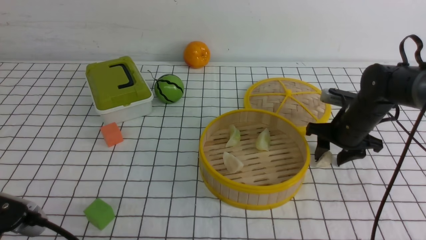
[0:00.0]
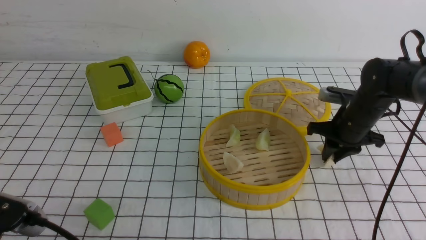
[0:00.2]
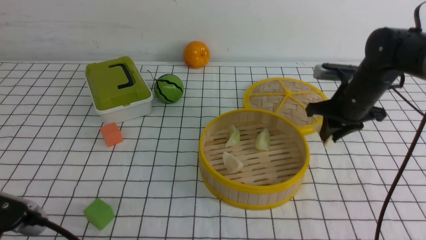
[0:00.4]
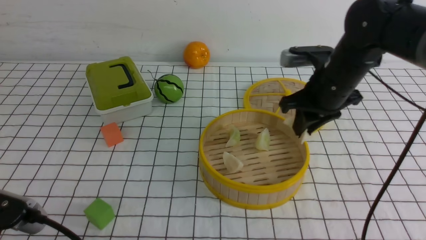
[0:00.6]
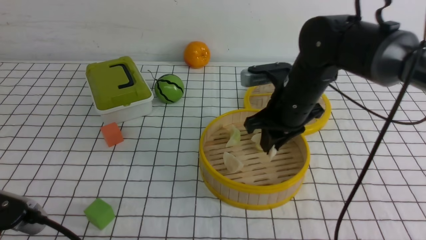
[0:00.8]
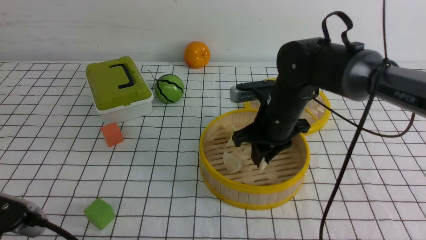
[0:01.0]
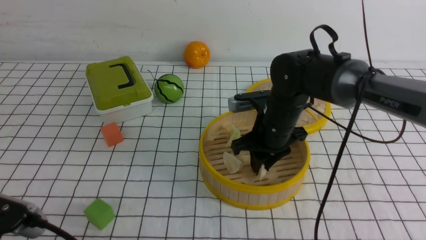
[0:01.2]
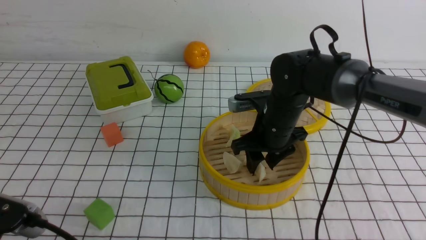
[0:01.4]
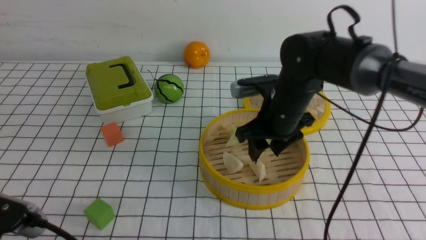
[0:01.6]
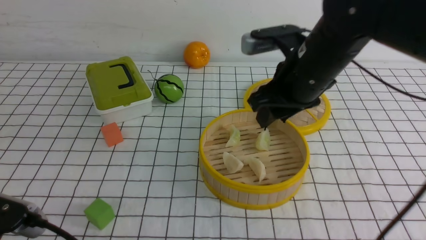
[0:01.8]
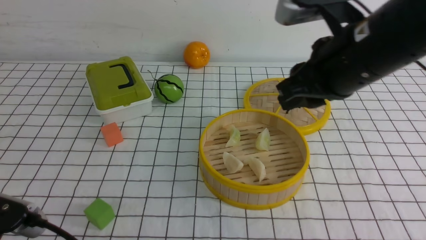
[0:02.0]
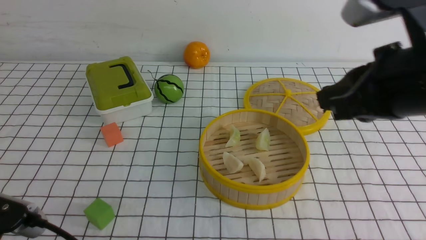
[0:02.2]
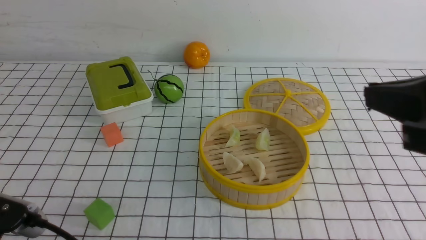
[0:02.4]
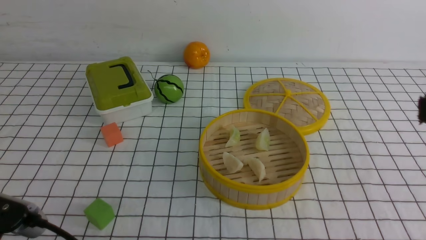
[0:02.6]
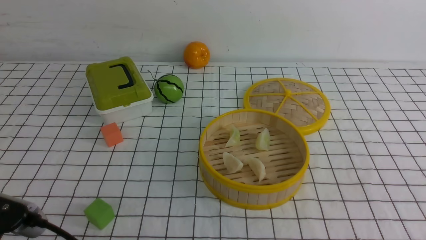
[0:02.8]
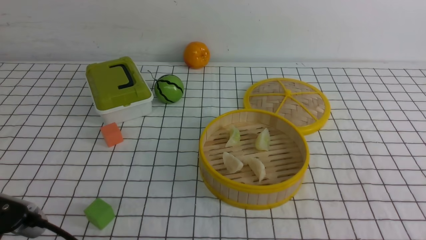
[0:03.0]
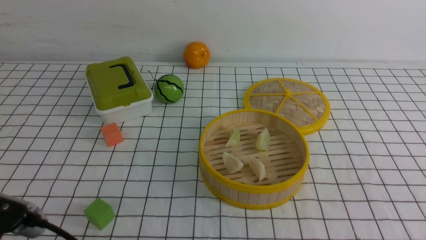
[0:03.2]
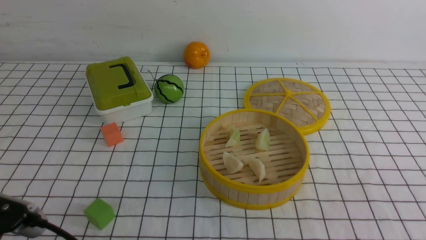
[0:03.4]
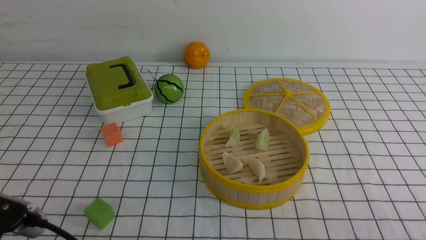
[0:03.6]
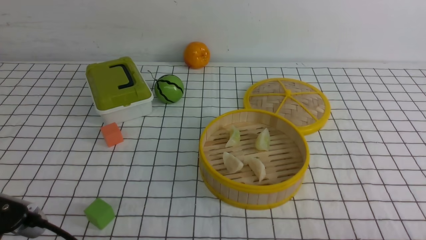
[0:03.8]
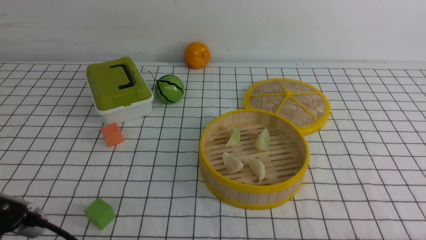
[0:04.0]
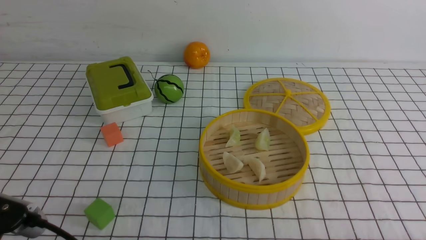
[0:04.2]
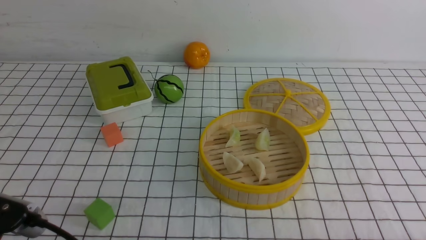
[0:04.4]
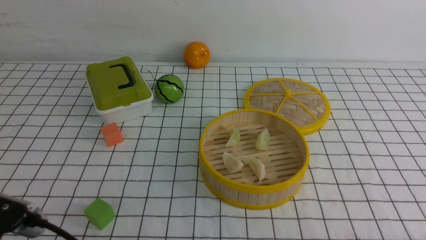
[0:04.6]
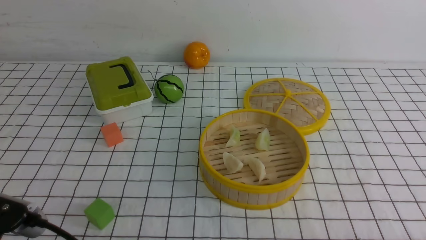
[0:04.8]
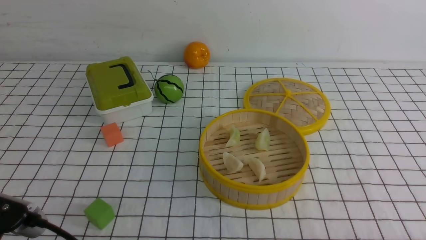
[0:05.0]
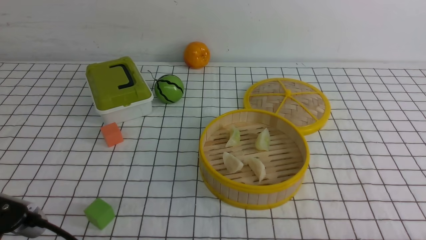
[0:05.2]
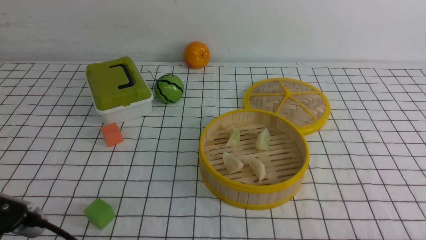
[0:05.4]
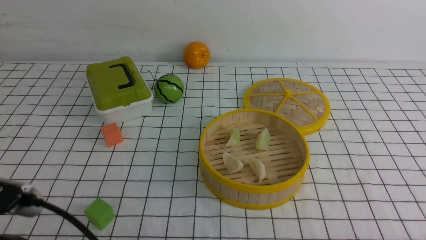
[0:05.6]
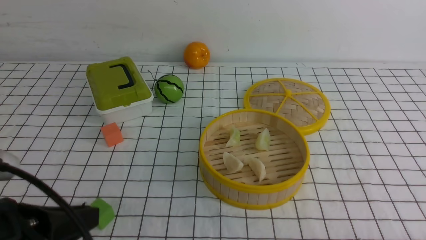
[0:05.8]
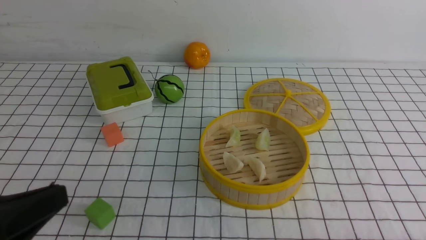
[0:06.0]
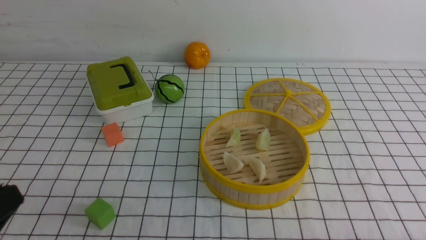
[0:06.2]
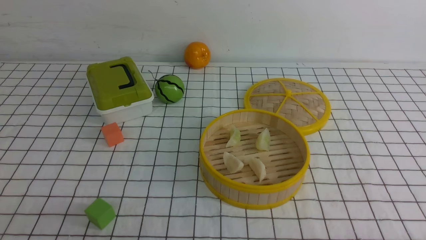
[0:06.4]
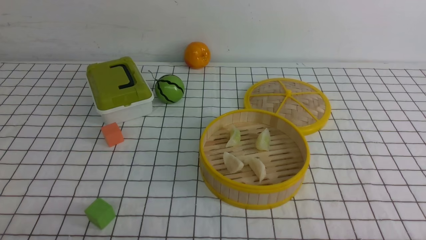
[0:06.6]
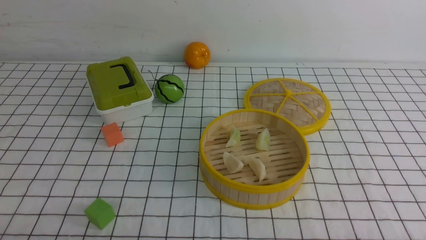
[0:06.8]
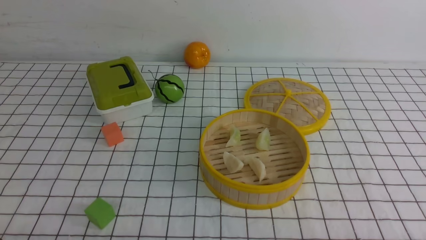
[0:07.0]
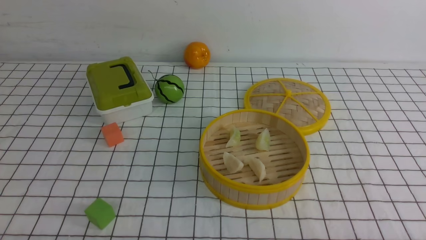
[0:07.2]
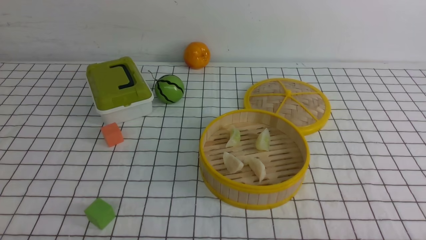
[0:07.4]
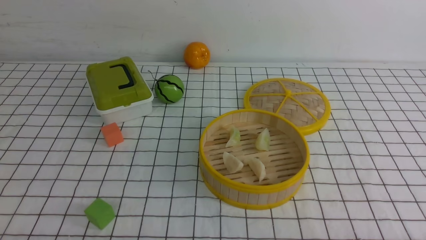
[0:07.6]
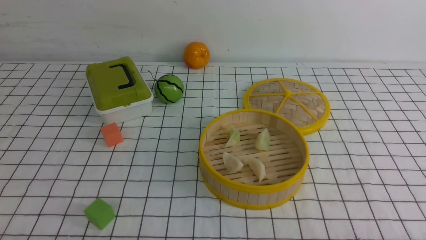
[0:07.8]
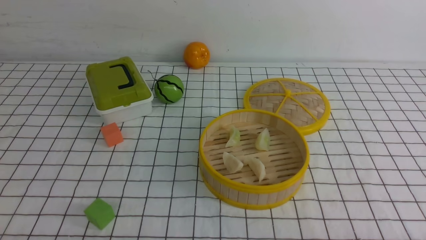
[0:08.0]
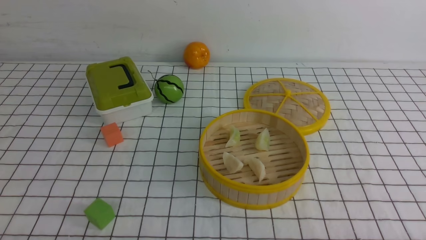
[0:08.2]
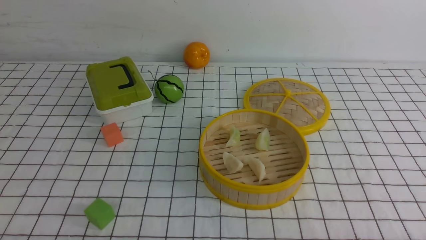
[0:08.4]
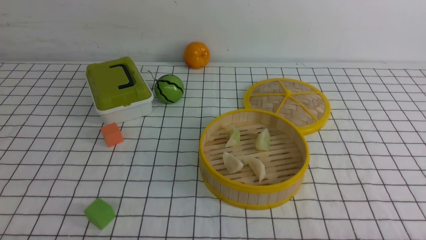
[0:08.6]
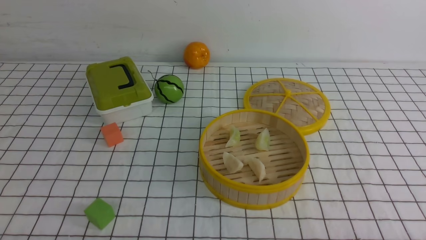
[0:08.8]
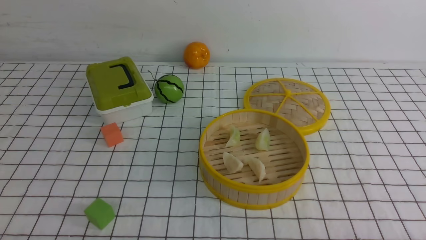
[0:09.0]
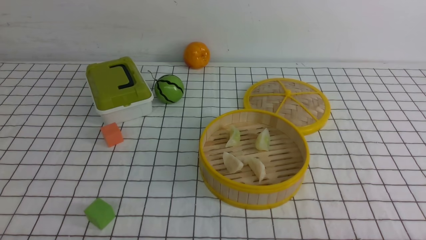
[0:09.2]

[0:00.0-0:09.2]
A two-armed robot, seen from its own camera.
Task of the whole recording: put the dumplings into the steamer on the table with the white tablecloth.
Step, 0:00.6 to 0:01.4: use the right arm to put the dumpling into the steamer.
0:00.0 to 0:01.6: The right gripper heads to the left and upward, covering roughly 20 cm, and closes, then opens again.
0:01.6 to 0:03.0: The right gripper moves backward, to the right and upward, some 35 cm, and closes.
0:06.2 to 0:07.6: The left gripper shifts roughly 10 cm downward.
0:07.6 to 0:09.2: Neither gripper changes place.
